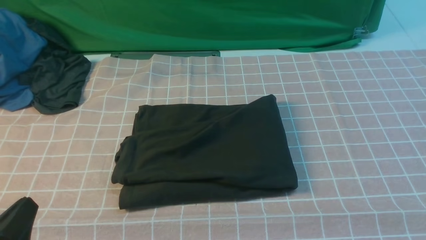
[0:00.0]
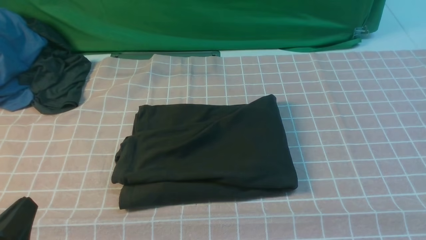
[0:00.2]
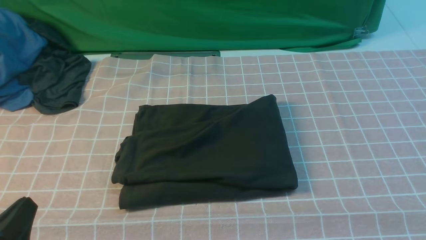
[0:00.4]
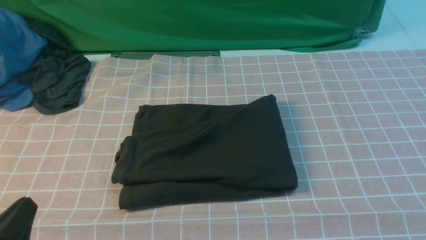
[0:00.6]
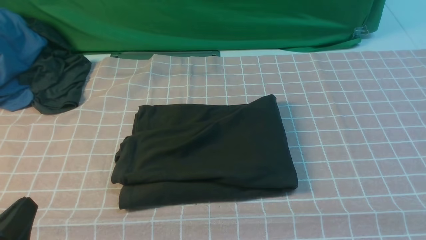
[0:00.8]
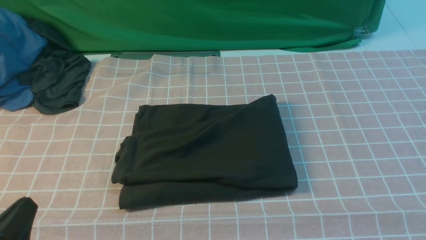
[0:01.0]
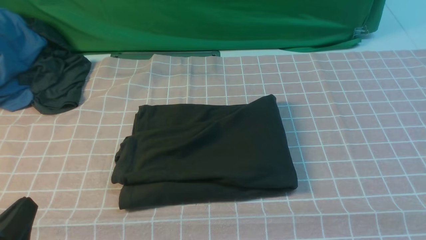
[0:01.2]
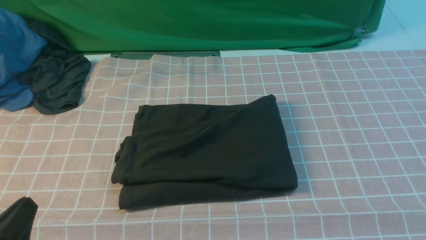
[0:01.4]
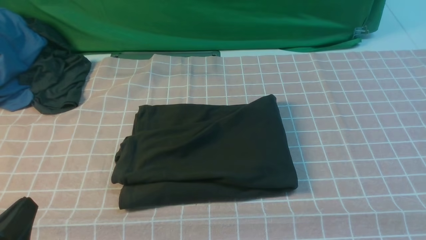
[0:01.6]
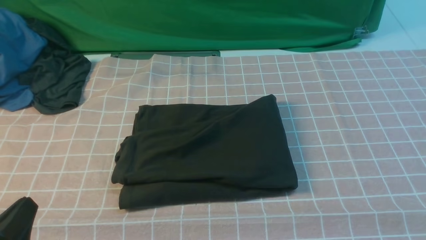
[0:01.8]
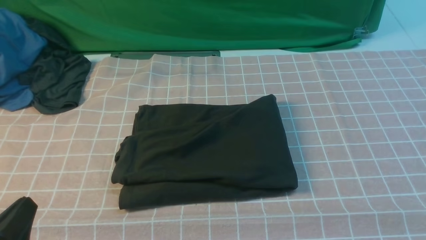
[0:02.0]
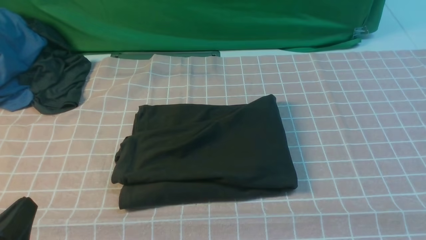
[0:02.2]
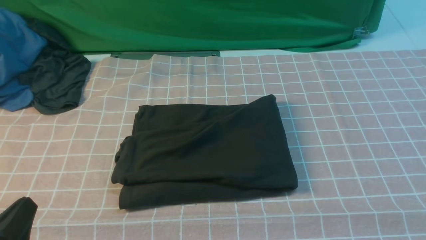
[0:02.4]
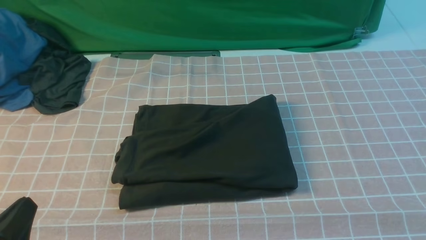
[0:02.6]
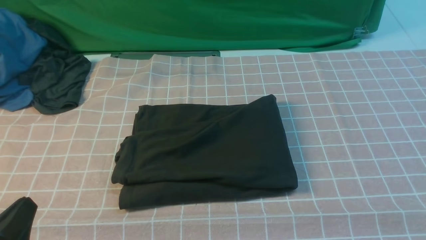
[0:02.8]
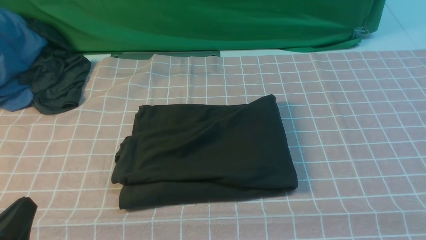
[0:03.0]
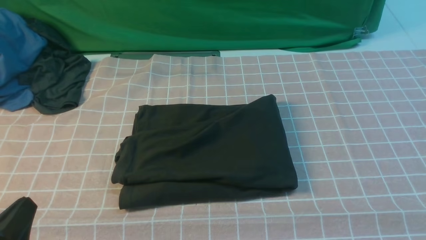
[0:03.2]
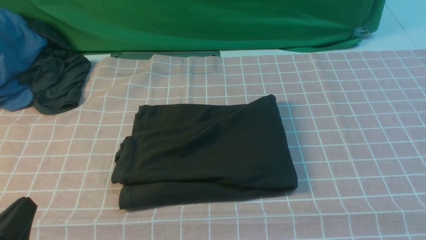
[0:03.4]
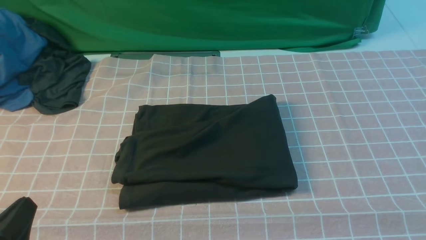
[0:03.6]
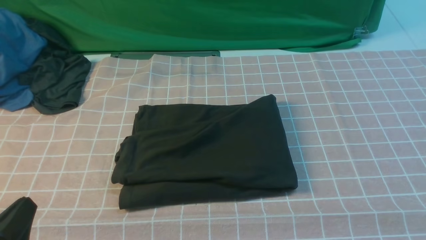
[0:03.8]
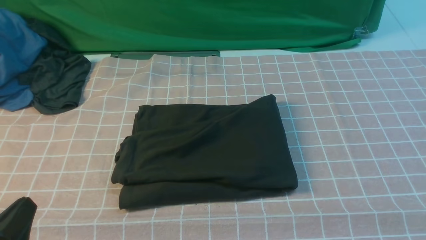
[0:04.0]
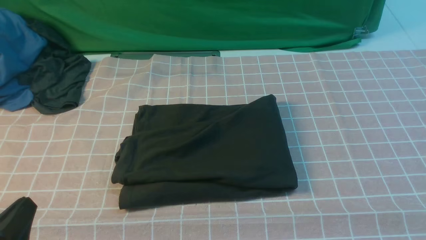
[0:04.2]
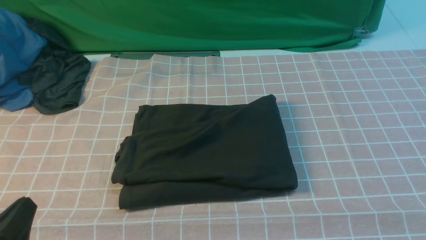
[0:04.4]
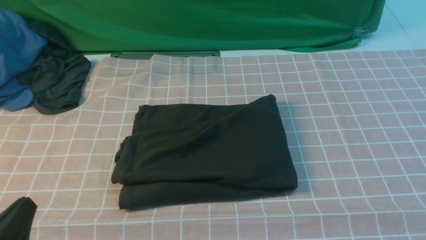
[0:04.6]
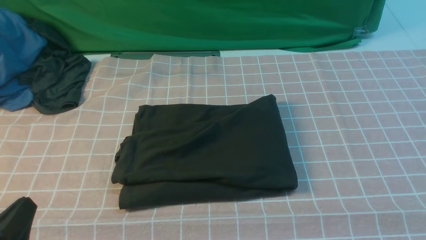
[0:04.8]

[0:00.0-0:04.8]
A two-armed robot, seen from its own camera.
0:03.2 to 0:04.8: Both grippers stay about where they are.

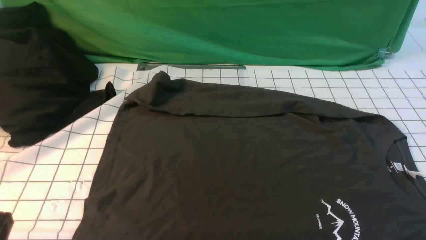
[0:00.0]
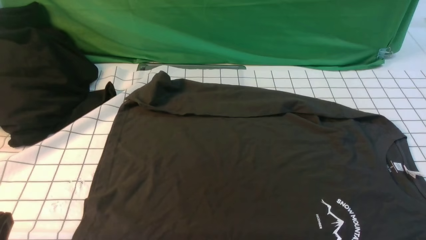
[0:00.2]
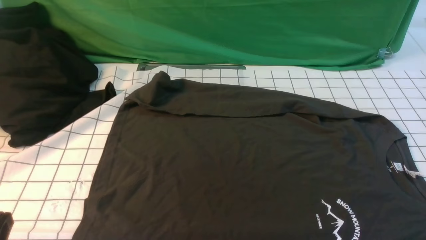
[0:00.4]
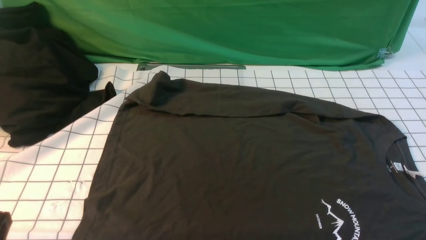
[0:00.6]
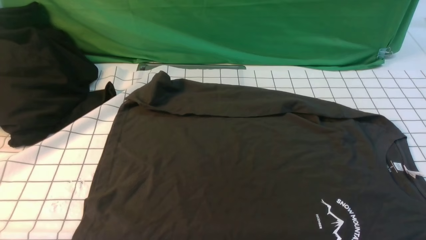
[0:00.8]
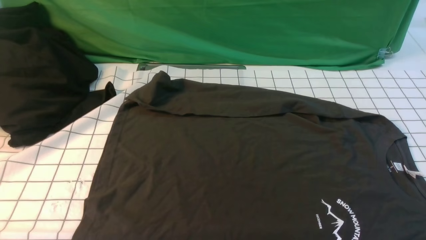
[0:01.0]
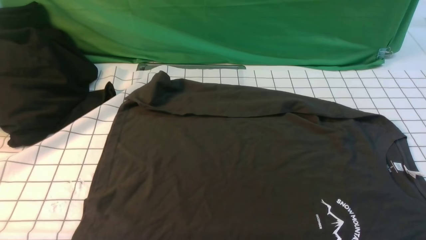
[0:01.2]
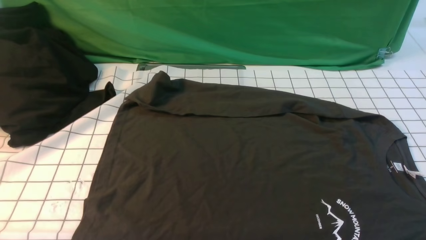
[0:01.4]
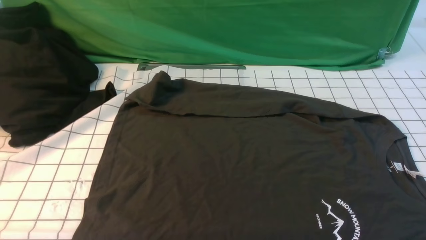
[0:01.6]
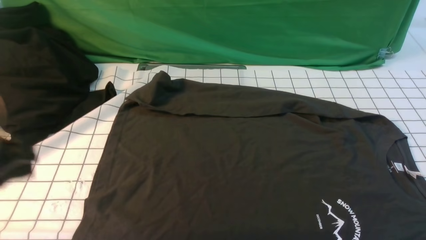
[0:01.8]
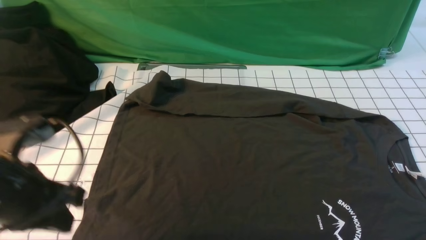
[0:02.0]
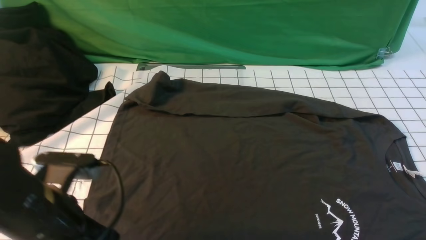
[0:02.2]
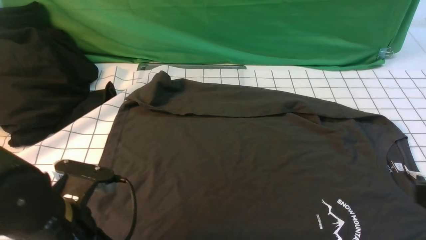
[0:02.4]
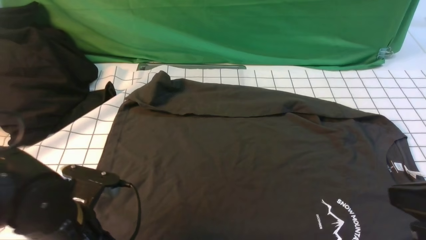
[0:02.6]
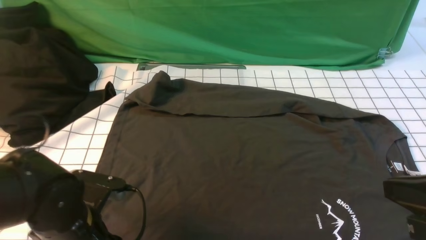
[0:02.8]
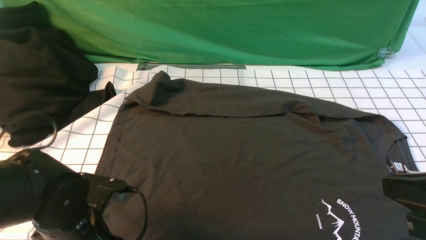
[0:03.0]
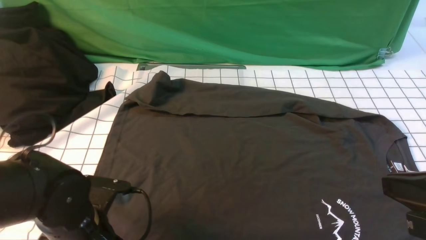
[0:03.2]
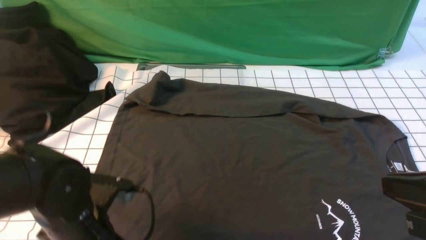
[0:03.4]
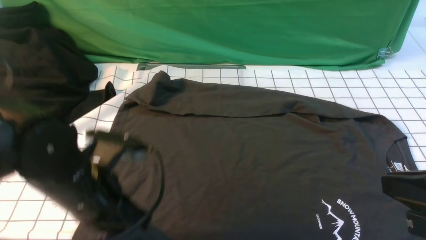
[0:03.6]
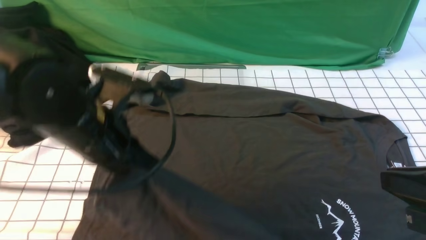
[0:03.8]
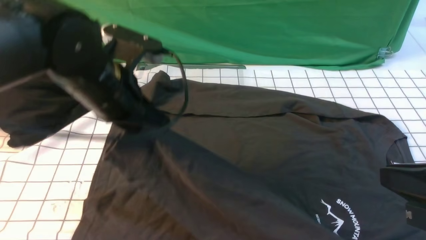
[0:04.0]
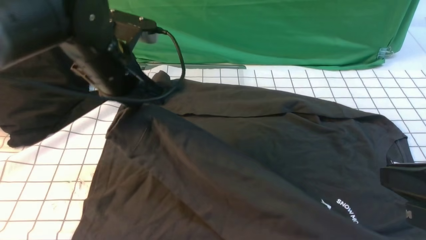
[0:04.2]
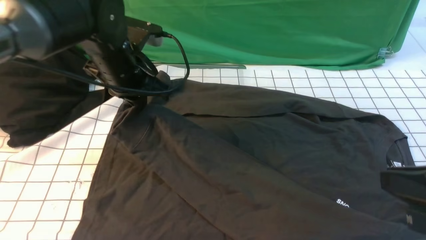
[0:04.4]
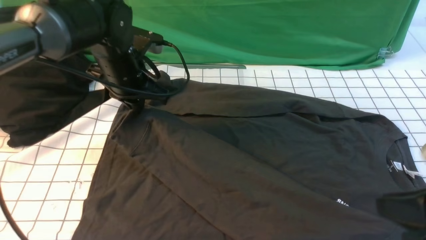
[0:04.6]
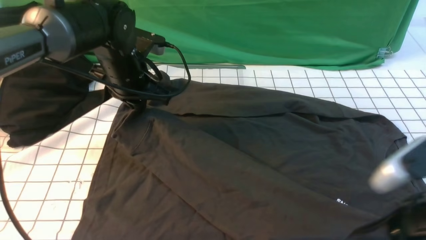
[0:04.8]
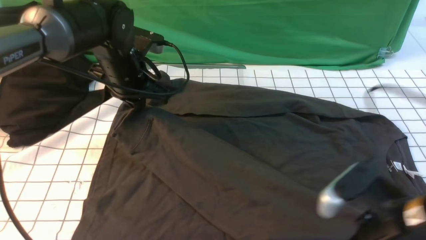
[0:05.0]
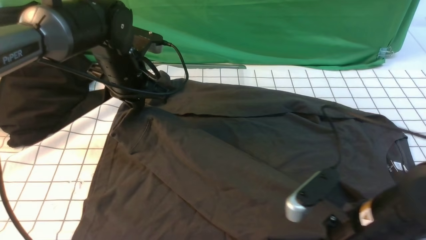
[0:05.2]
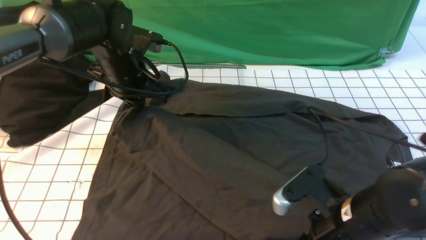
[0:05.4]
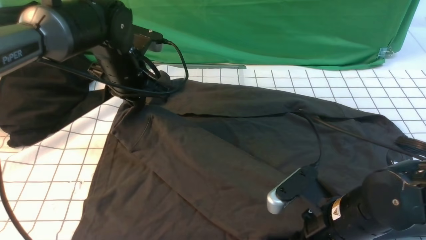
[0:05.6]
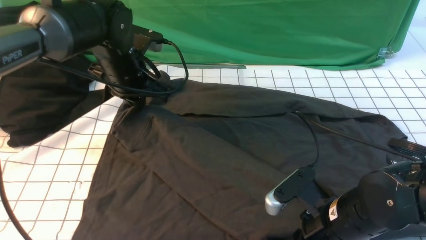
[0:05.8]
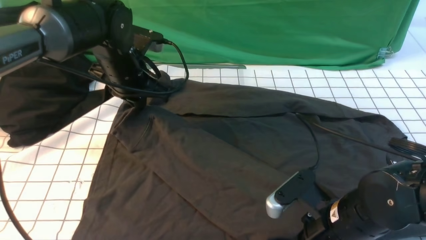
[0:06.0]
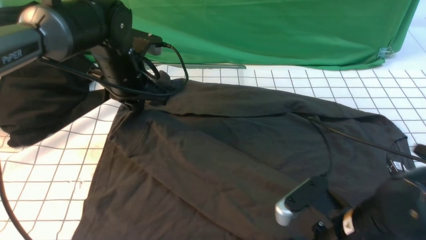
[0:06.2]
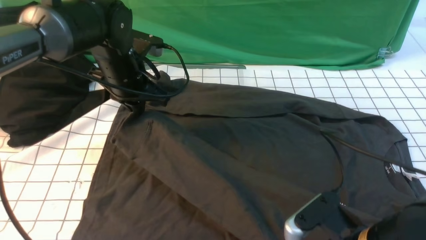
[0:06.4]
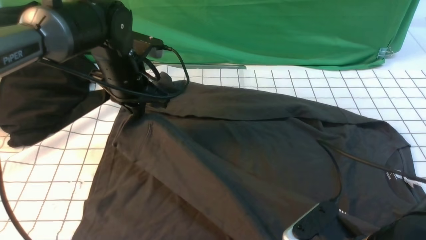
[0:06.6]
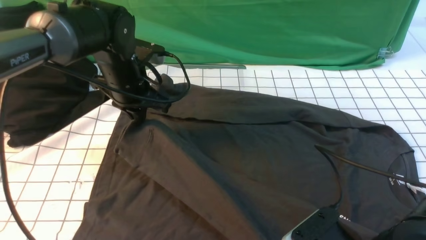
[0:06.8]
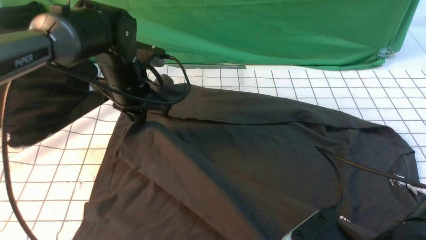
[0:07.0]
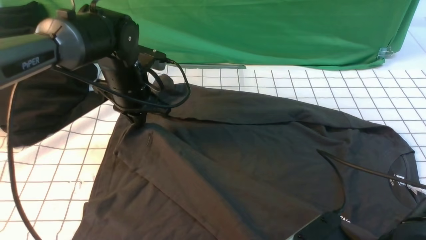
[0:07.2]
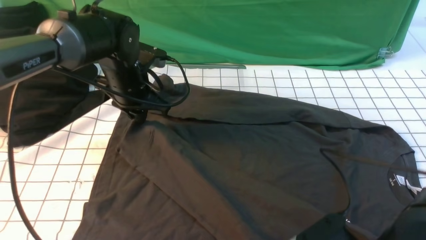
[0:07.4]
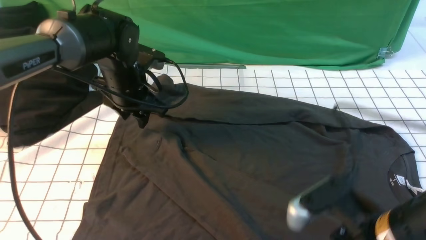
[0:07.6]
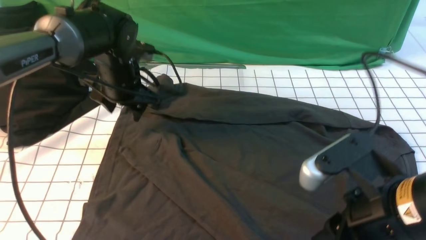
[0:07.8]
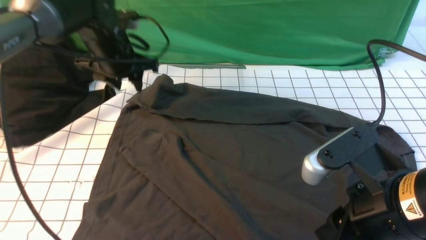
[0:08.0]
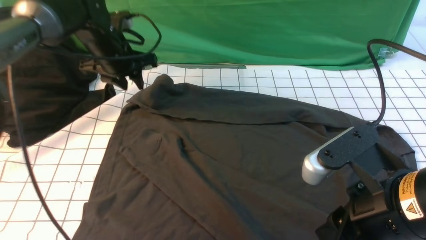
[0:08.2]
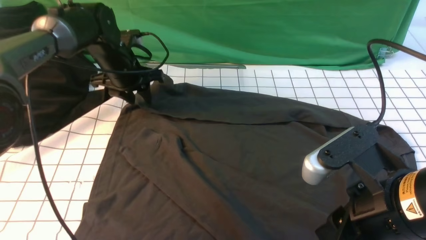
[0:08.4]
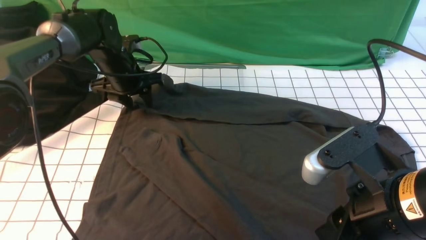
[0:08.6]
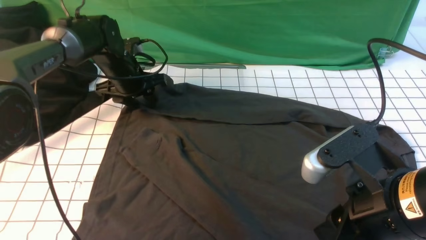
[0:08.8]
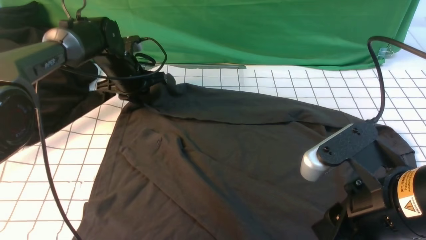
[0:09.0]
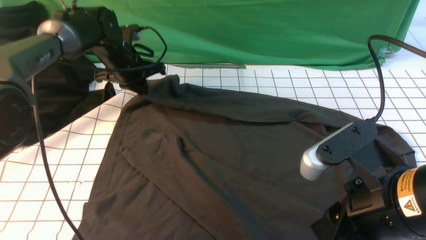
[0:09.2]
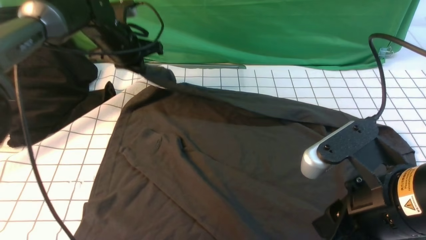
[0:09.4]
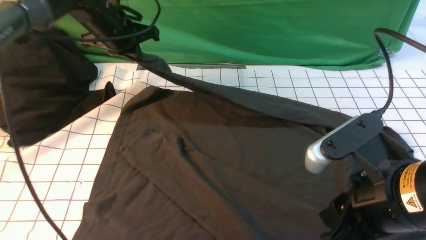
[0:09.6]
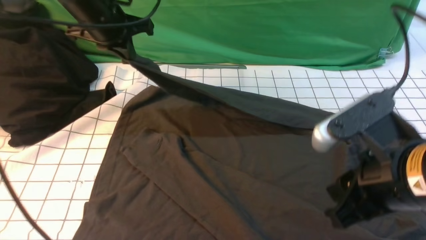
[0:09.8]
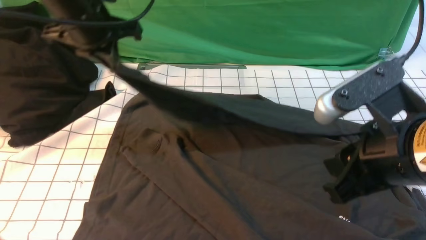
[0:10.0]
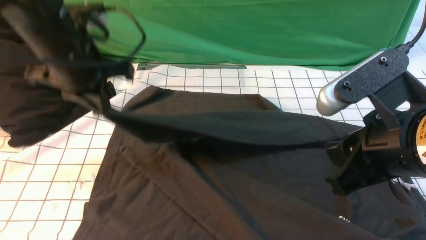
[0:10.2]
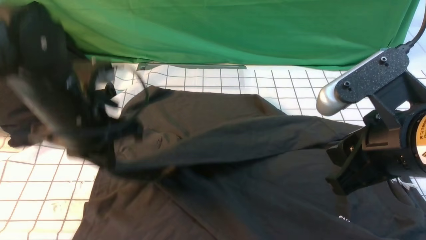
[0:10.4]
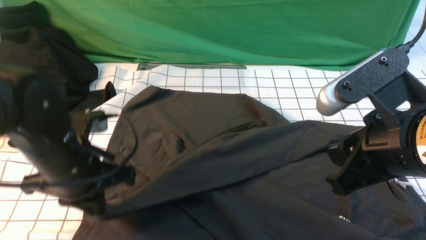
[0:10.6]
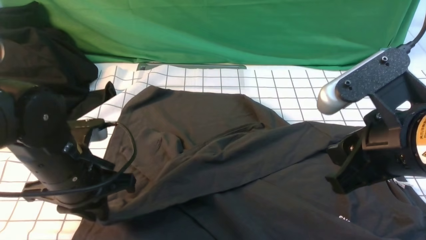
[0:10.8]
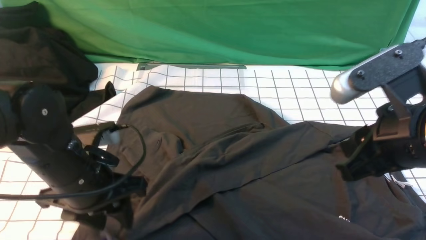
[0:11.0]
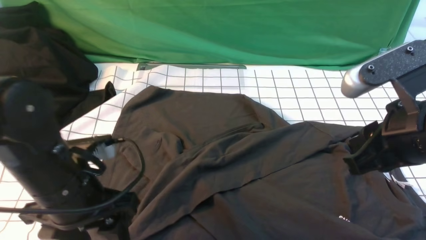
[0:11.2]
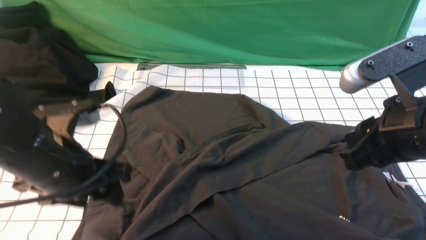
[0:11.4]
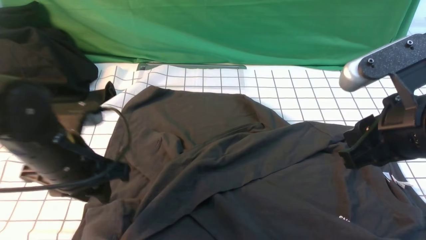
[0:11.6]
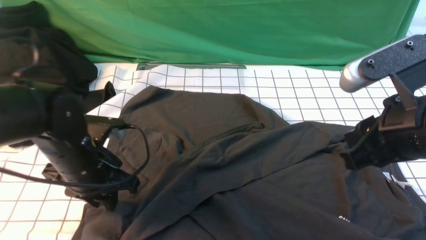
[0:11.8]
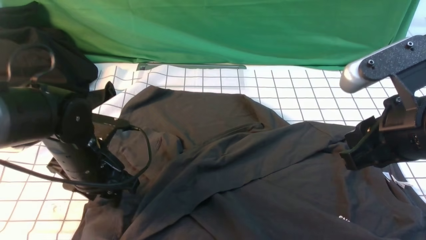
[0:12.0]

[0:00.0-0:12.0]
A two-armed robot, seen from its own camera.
Step, 0:00.0 to 0:03.6: use the left arm to clamp the cuff closest to it.
Step, 0:03.8 to 0:07.4: use the left arm to drag and place the cuff at the centered position on the left edge of the fabric.
Step, 0:07.6 to 0:09.0: use the left arm to clamp the cuff farthest from it.
Step, 0:09.2 to 0:11.0: use the left arm to drag and drop the cuff onto the cuff closest to the left arm.
0:01.6 to 0:03.0: The right gripper moves upward, to the left and forward, about 15 cm, and closes up; the left gripper travels downward, to the right and forward by roughly 25 cm, and opens.
0:03.0 to 0:04.4: The left gripper is displaced forward and upward by approximately 25 cm, and closes up.
0:04.4 to 0:06.0: The right gripper shifts about 20 cm downward, to the left and forward, and opens, then closes once more.
0:06.0 to 0:07.6: The left gripper opens its fingers, while the right gripper moves upward and backward, about 10 cm, and opens up.
0:07.6 to 0:09.0: The left gripper goes some 10 cm forward, and closes.
0:09.0 to 0:10.4: The right gripper ends up some 5 cm from where it was, while the left gripper goes about 20 cm backward.
0:10.4 to 0:12.0: The left gripper shifts roughly 10 cm downward, and opens.
